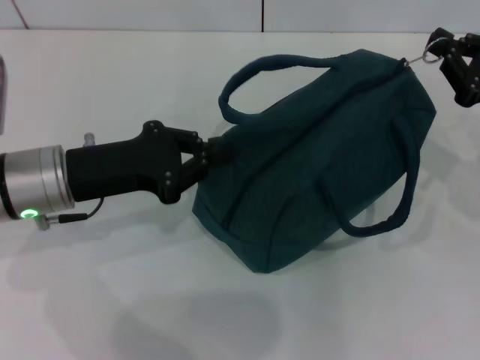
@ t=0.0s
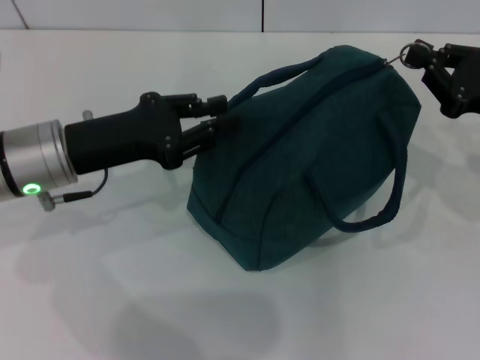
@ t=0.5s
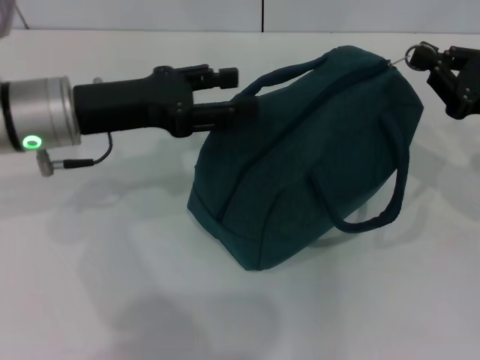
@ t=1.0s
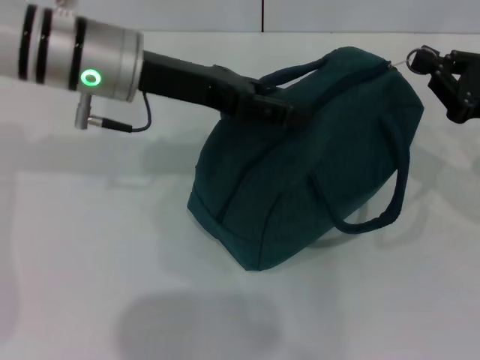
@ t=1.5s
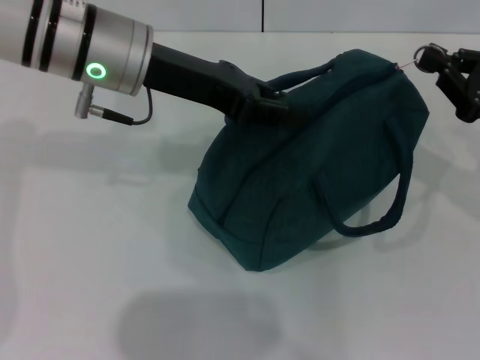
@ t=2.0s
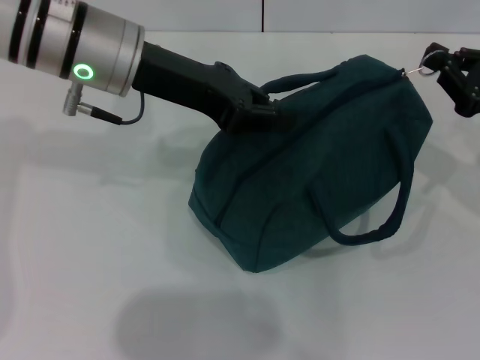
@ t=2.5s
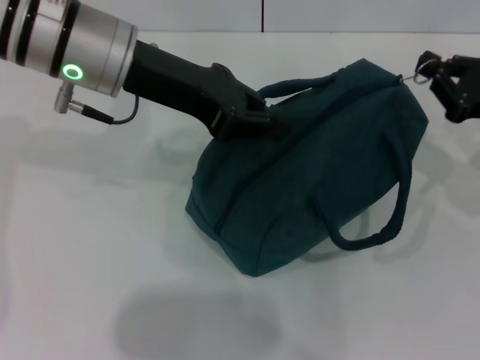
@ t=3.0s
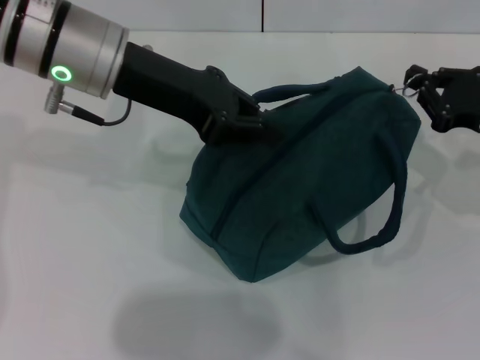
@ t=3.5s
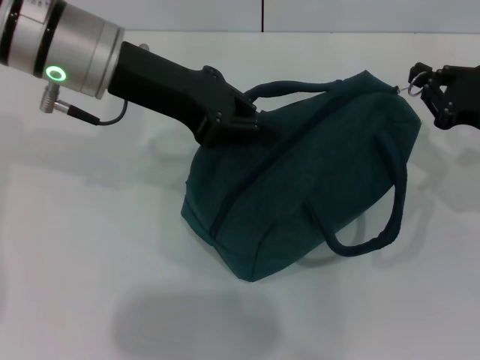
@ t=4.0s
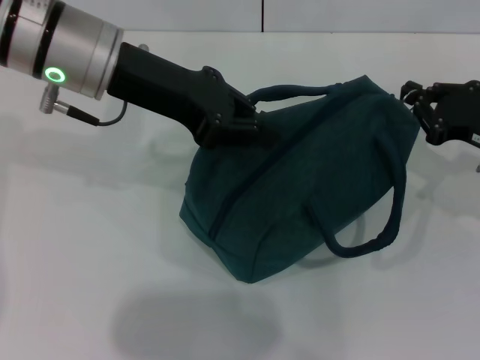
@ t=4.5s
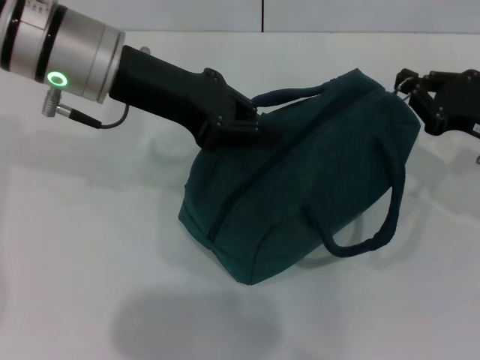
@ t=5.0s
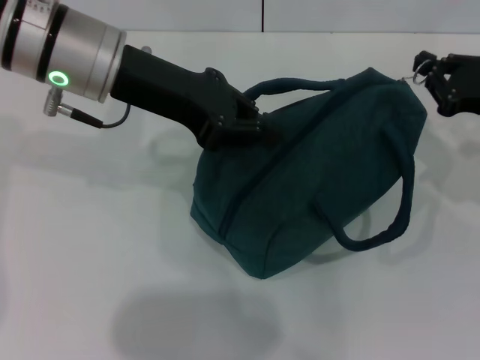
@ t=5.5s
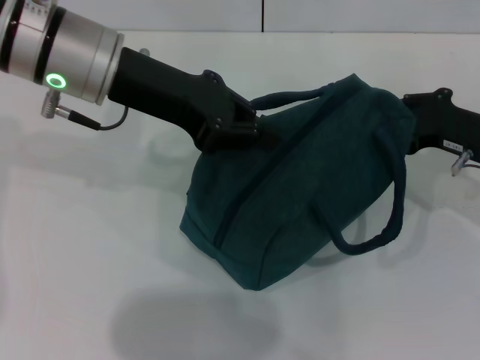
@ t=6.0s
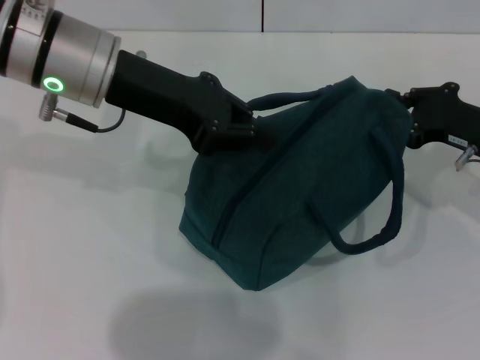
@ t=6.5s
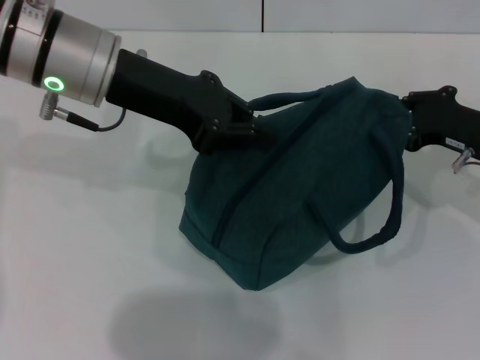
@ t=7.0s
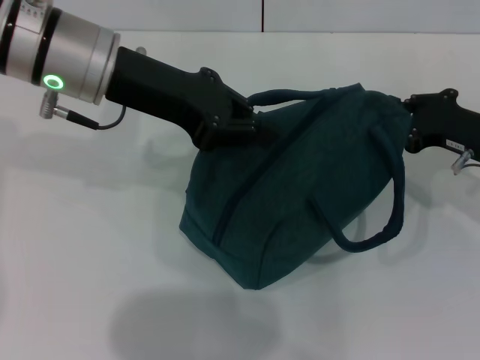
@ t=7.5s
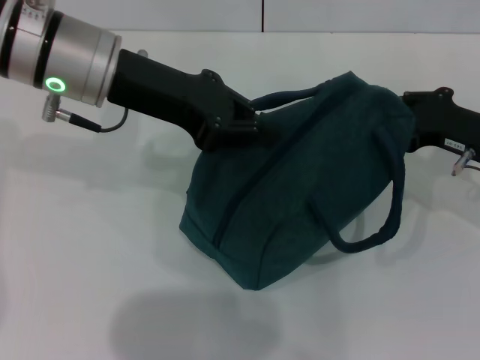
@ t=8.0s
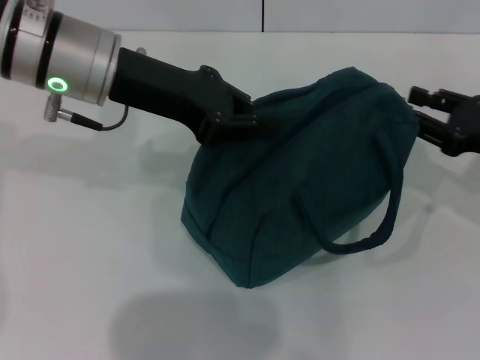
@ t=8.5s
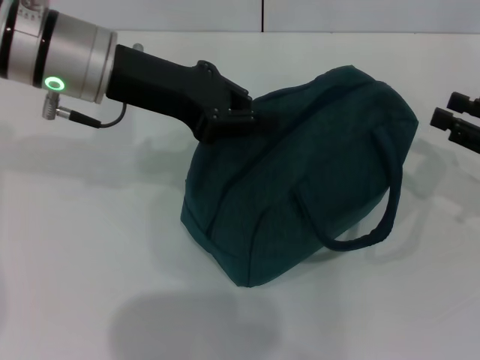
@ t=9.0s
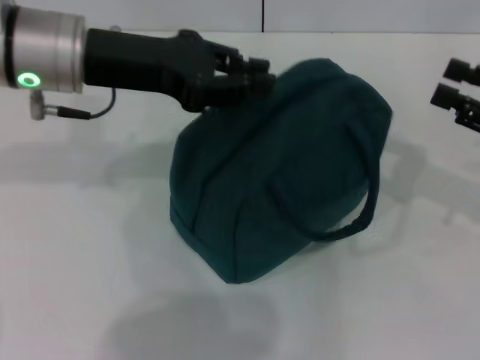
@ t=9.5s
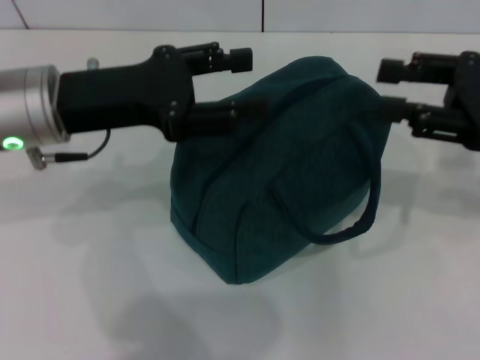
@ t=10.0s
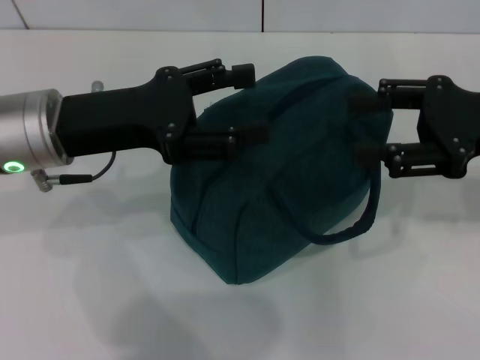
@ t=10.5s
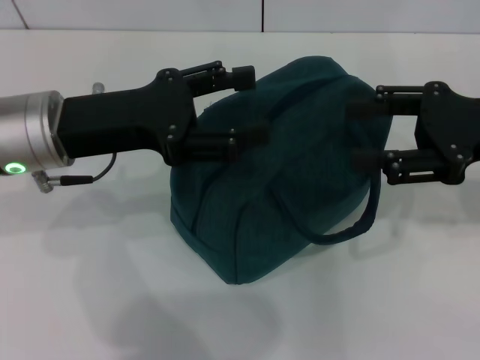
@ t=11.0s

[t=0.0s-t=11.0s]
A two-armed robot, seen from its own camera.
Step, t=0.0s to t=8.0s: Zip up the lunch bag with your right hand.
Step, t=9.0s to t=9.5s: Hold the lunch bag with your left hand.
t=0.0s to t=2.0s: The left gripper travels upward, to the right and forward by about 15 cm, and opens up.
t=2.0s to t=3.5s: The left gripper closes up.
t=3.5s to t=5.5s: The two grippers keep their place.
t=5.5s to t=7.5s: The grippers stay close to where they were, moving slightly.
t=7.5s to t=9.0s: The right gripper moves to the right, roughly 5 cm, and opens up.
t=9.0s to t=11.0s: The right gripper is displaced upward and to the left by approximately 10 cm. The left gripper goes roughly 5 cm backward, and opens its fingers.
